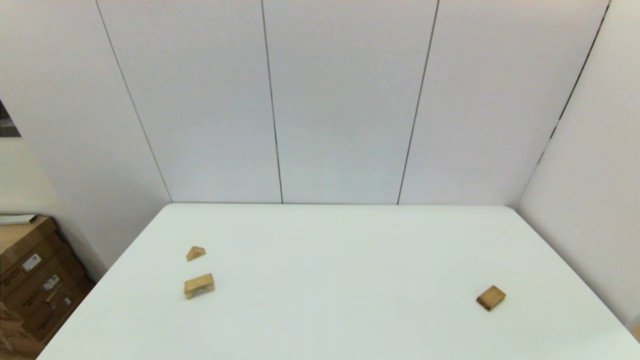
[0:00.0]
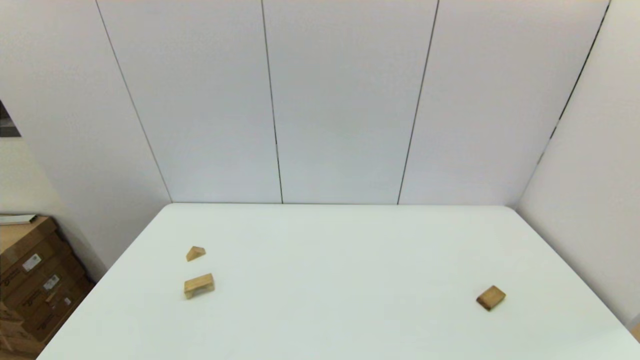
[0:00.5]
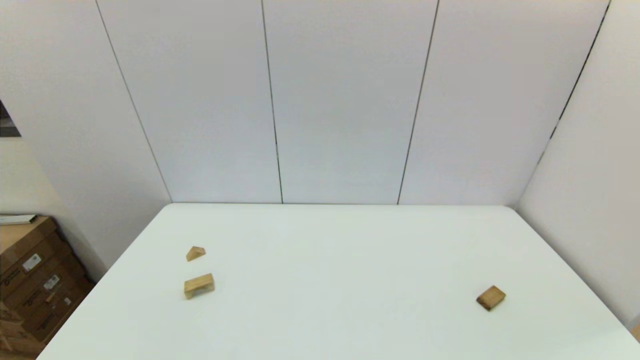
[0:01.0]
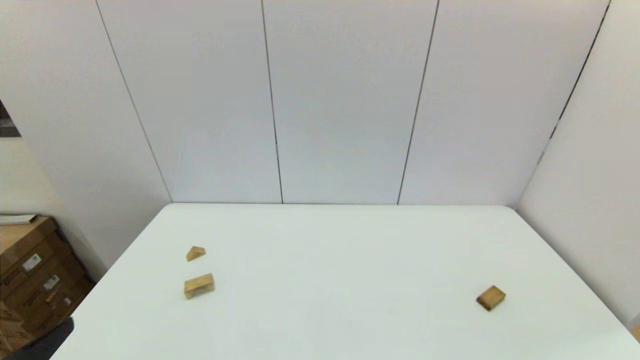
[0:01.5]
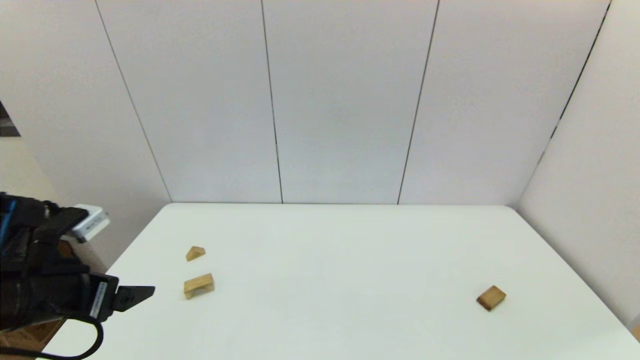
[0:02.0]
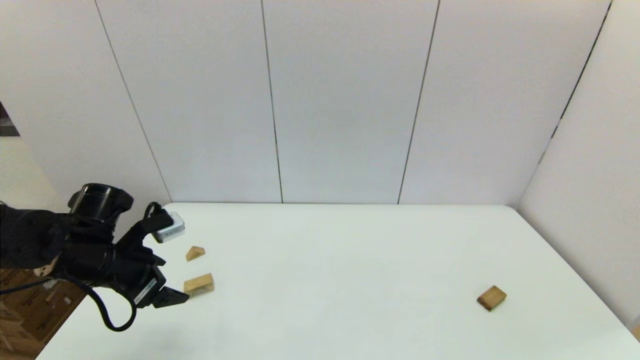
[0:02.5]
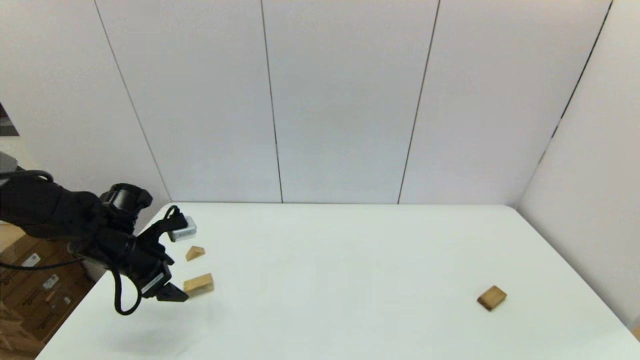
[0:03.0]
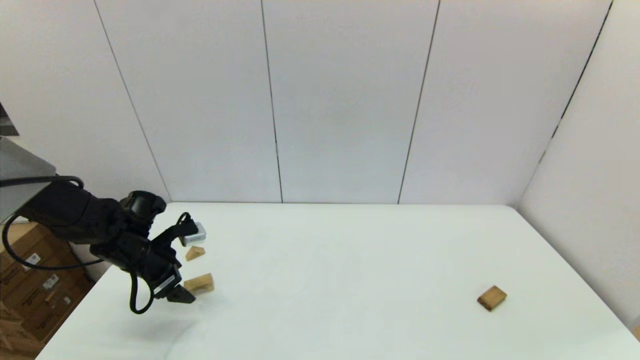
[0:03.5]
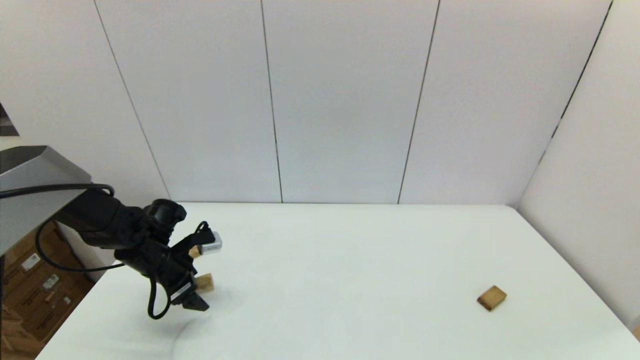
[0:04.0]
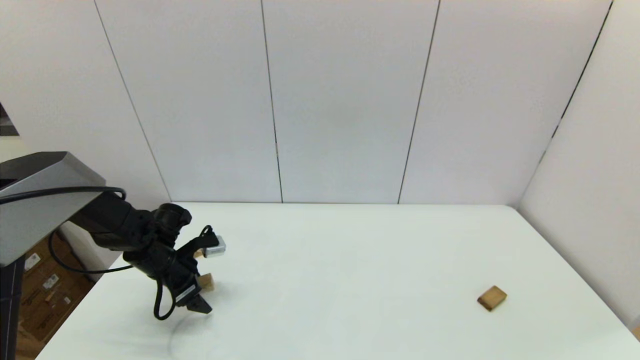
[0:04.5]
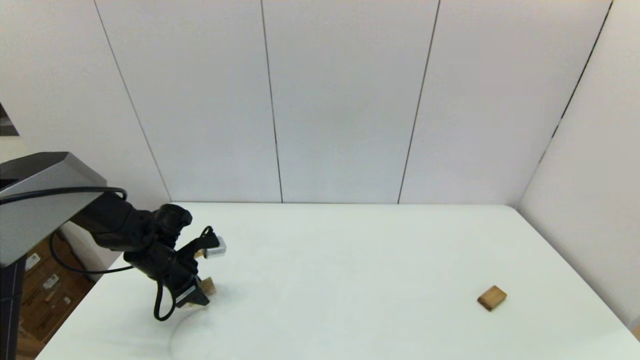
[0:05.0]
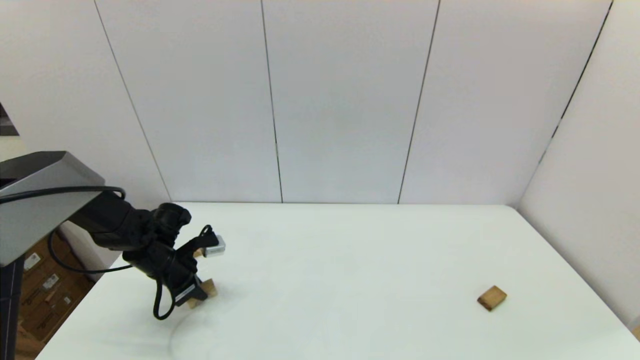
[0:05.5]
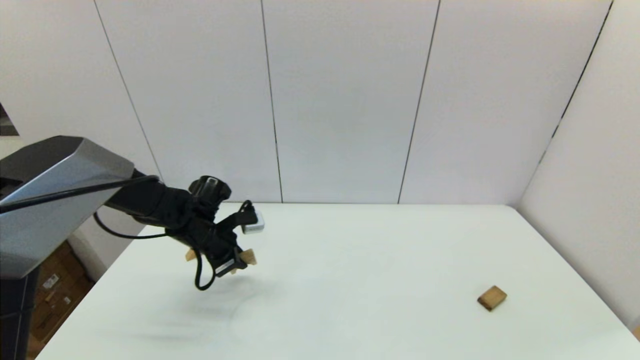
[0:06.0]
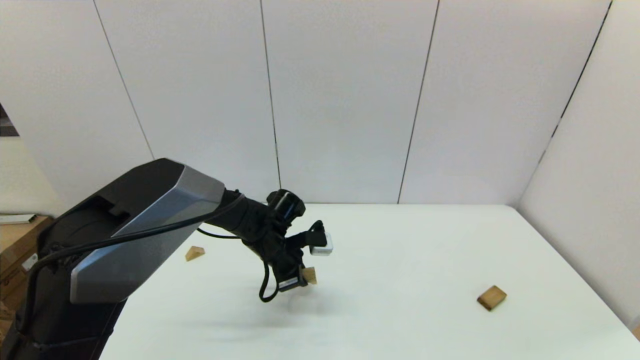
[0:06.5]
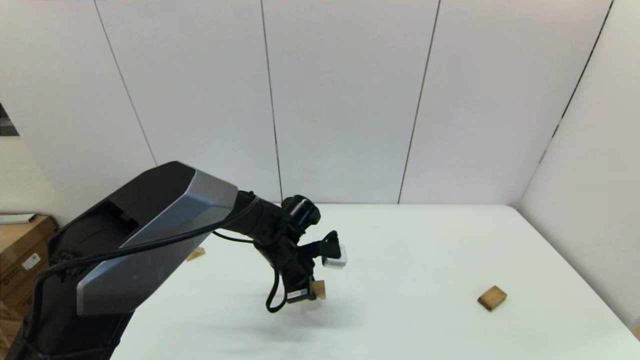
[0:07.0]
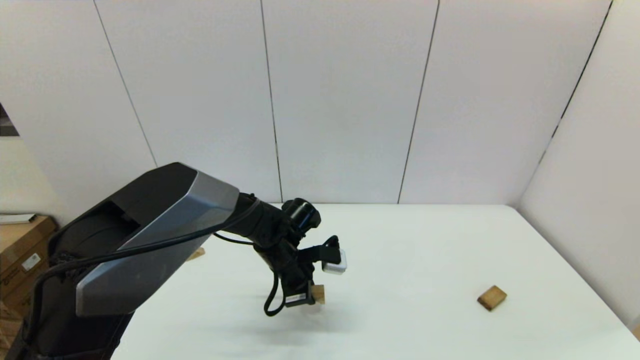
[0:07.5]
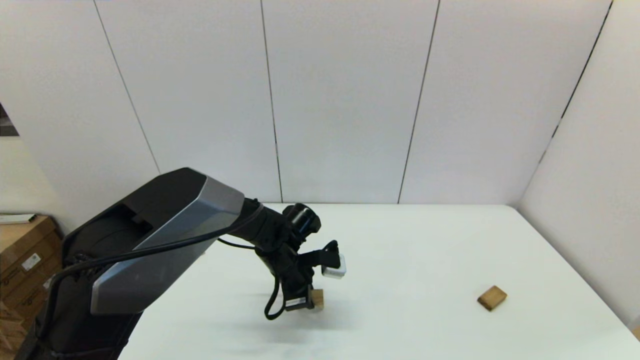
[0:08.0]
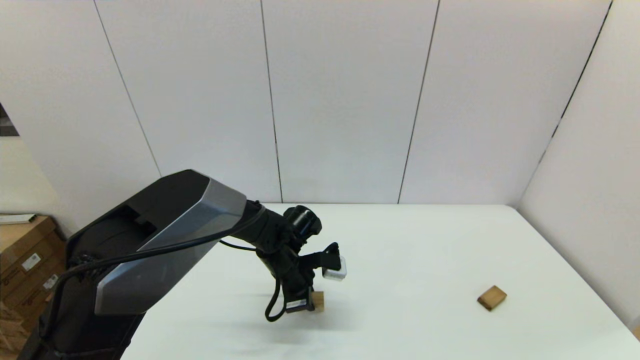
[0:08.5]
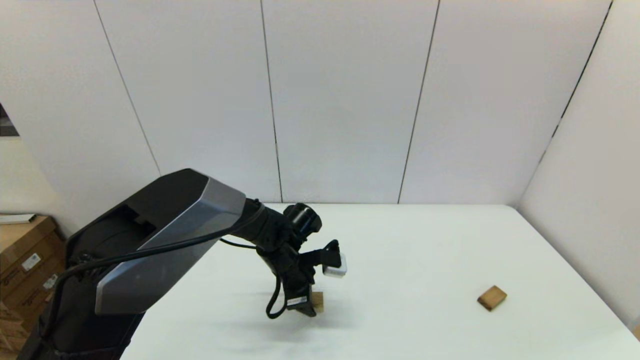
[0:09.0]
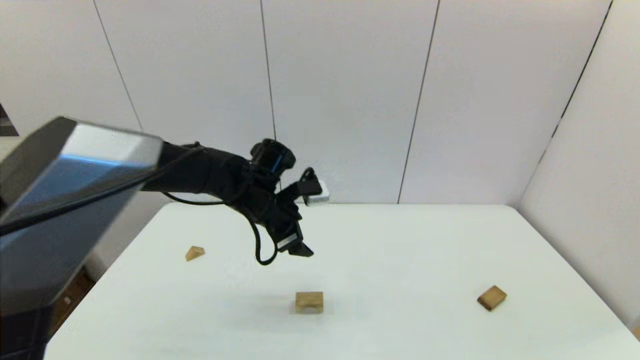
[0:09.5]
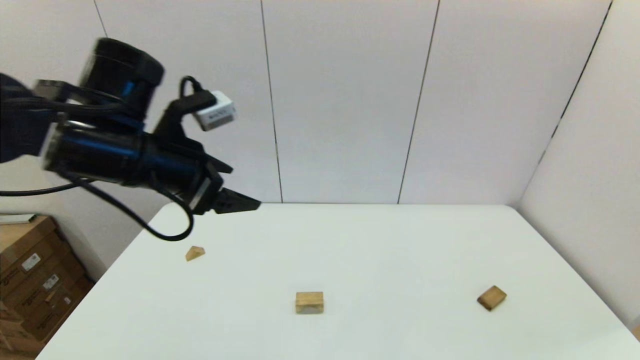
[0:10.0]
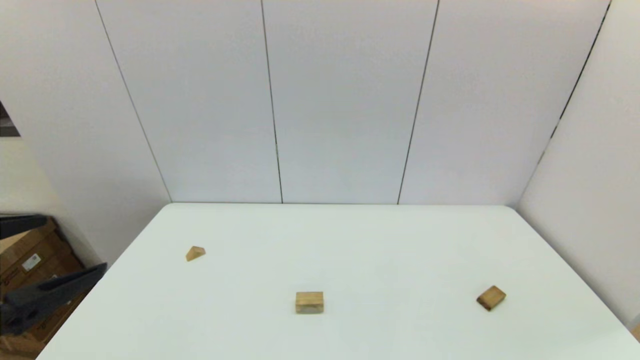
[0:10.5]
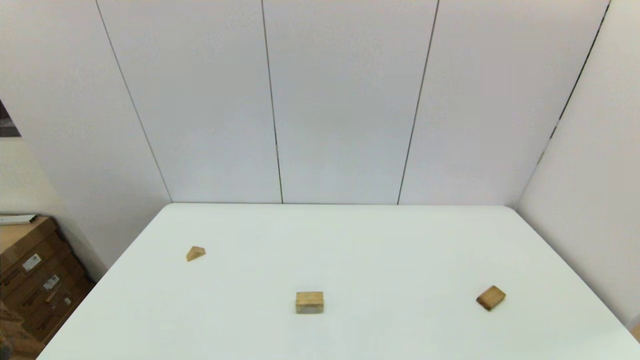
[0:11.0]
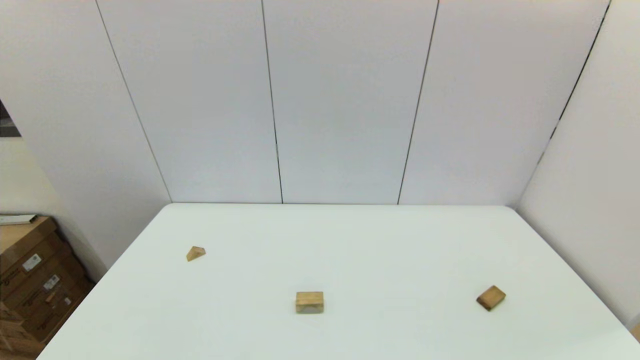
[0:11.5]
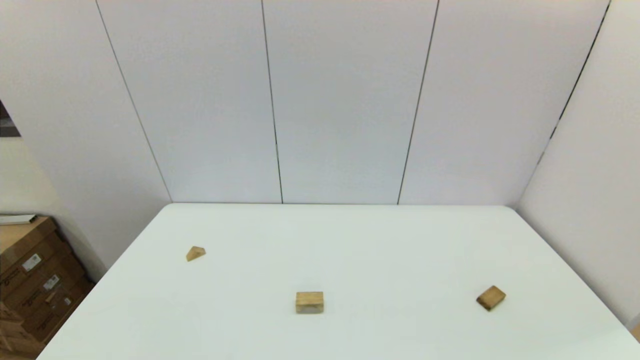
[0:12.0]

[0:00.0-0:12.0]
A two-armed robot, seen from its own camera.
Task of the whole recording: place the arched building blocks in the center of the table, set up the rectangular building blocks, and then set up the triangular building blocks.
Step, 0:01.5 to 0:05.0: Grasp the arch-shaped block with the left gripper.
Step, 0:05.5 to 0:08.5: Place the arch-shaped block in the center of view with the left gripper.
0:00.0 to 0:02.0: The left gripper goes approximately 20 cm forward.
0:02.0 to 0:04.0: The left gripper travels forward and downward by roughly 20 cm.
0:04.0 to 0:06.0: The left gripper goes approximately 10 cm to the right, and closes.
0:06.0 to 0:08.0: The left gripper is displaced to the right by some 15 cm.
0:08.0 to 0:10.0: The left gripper travels upward and to the left by about 30 cm, and opens up.
0:10.0 to 0:12.0: The left gripper is displaced backward and downward by some 35 cm.

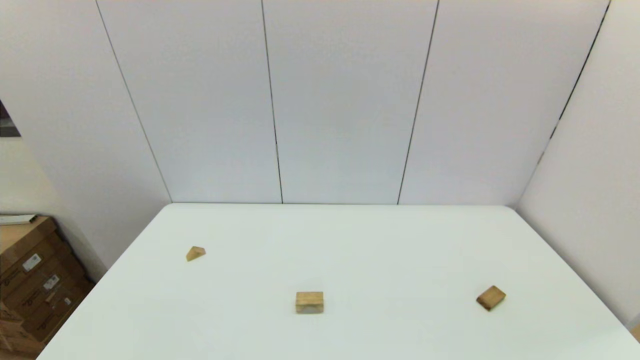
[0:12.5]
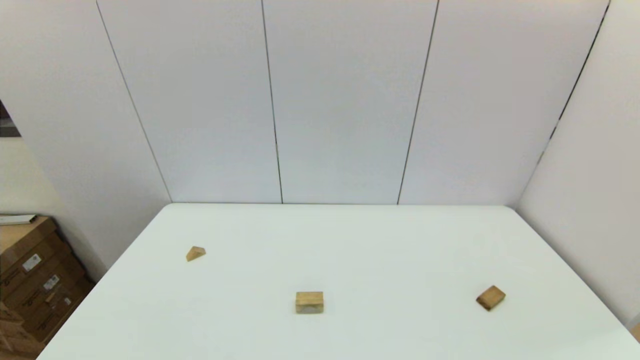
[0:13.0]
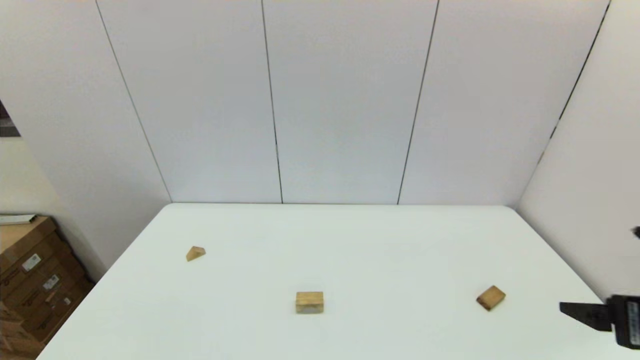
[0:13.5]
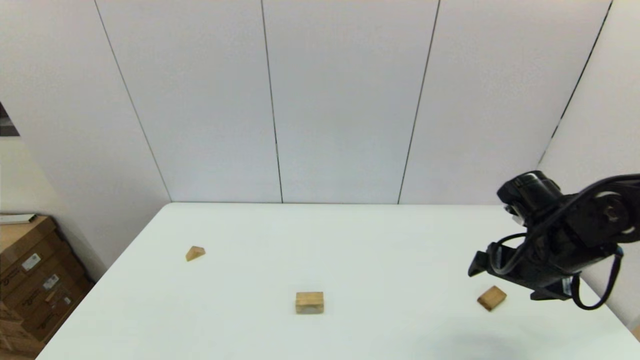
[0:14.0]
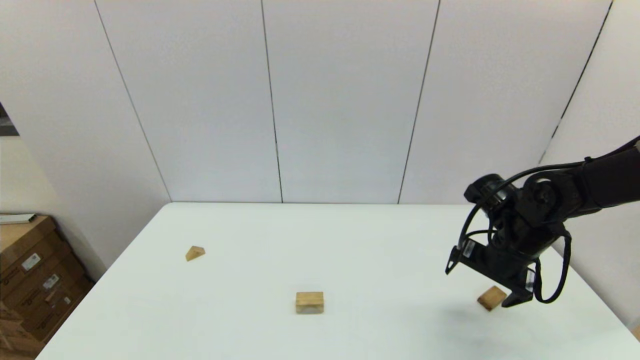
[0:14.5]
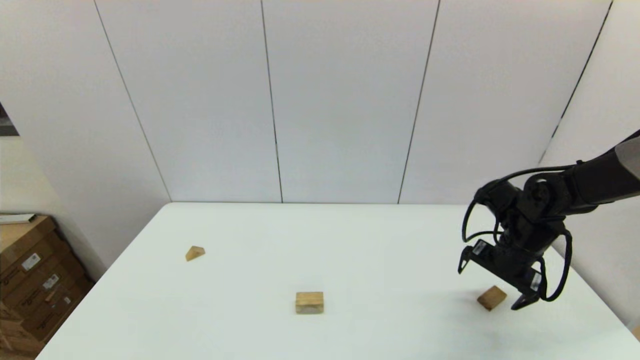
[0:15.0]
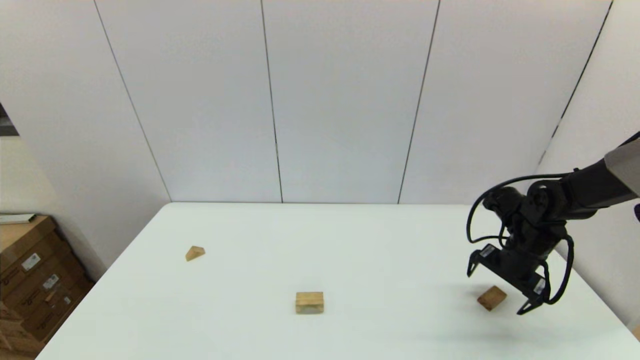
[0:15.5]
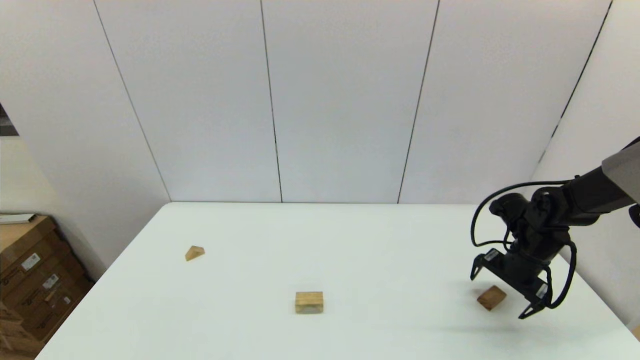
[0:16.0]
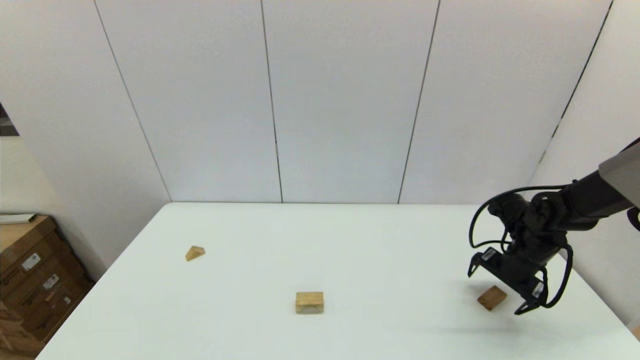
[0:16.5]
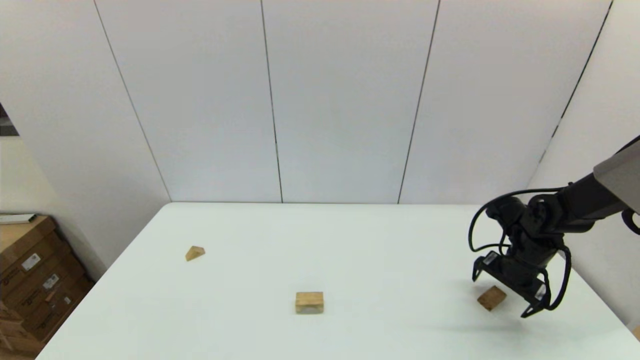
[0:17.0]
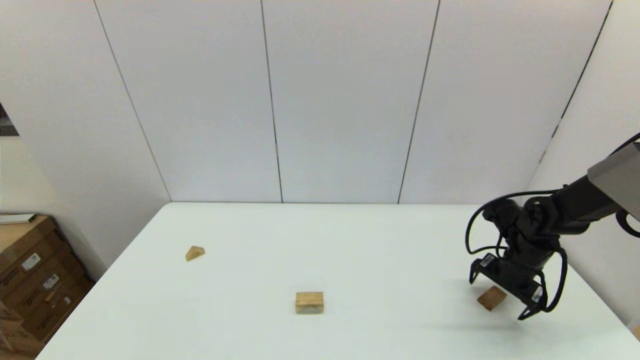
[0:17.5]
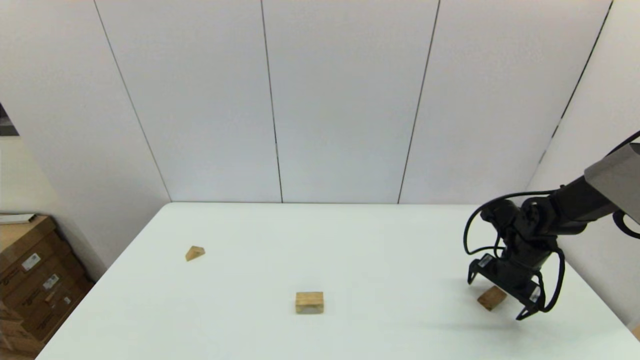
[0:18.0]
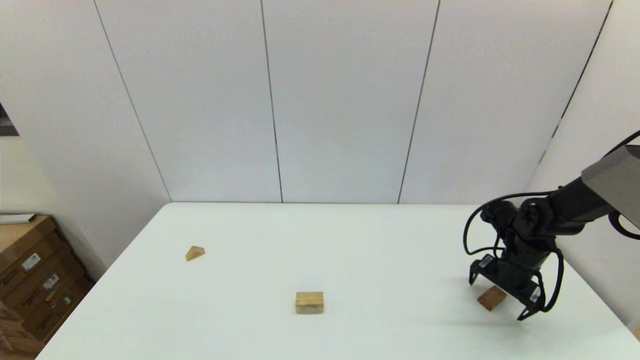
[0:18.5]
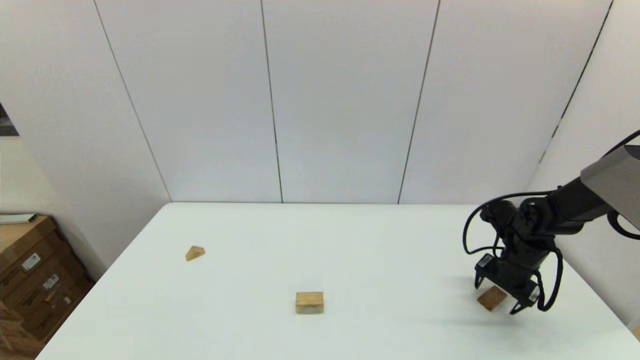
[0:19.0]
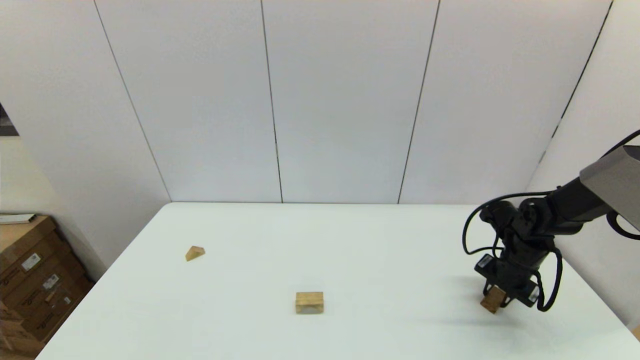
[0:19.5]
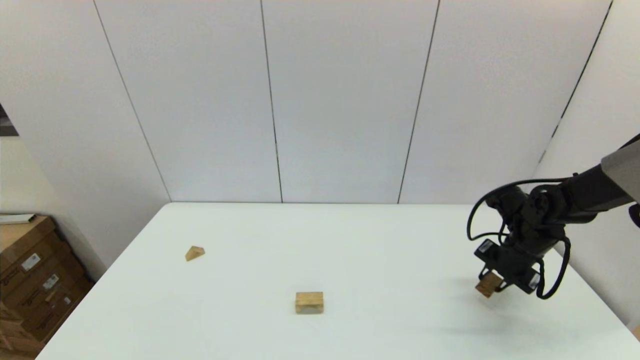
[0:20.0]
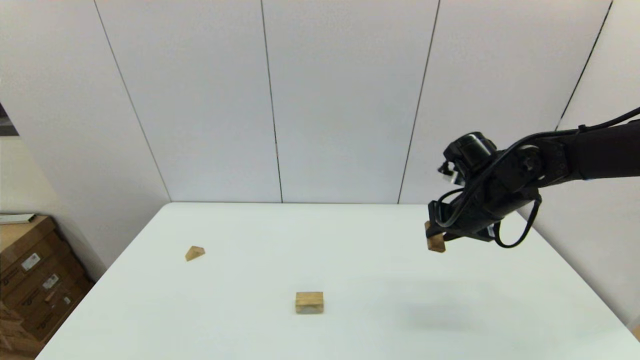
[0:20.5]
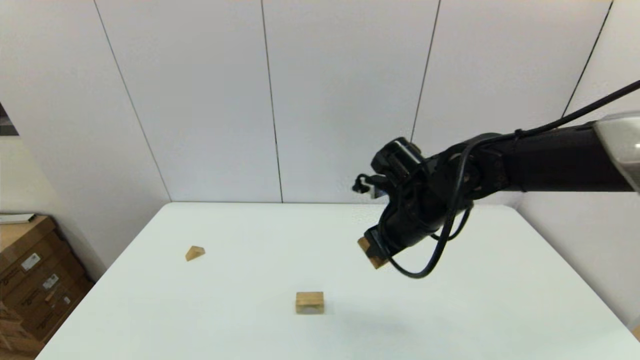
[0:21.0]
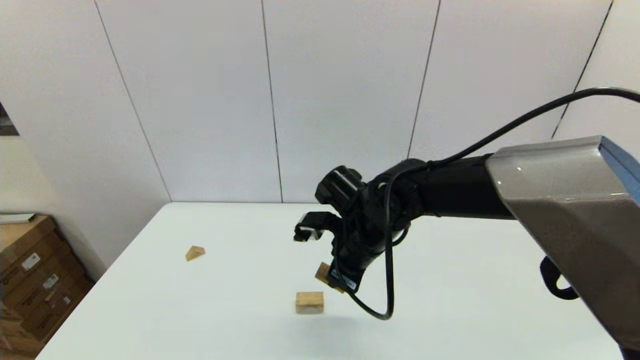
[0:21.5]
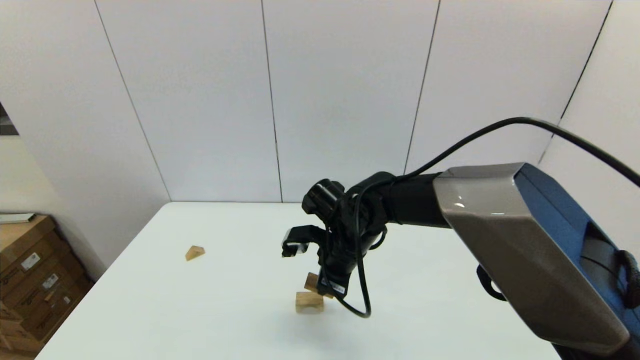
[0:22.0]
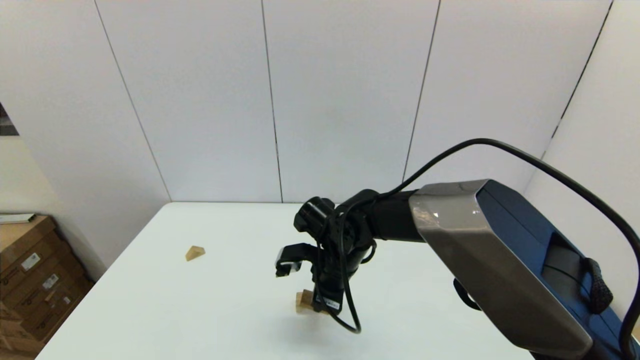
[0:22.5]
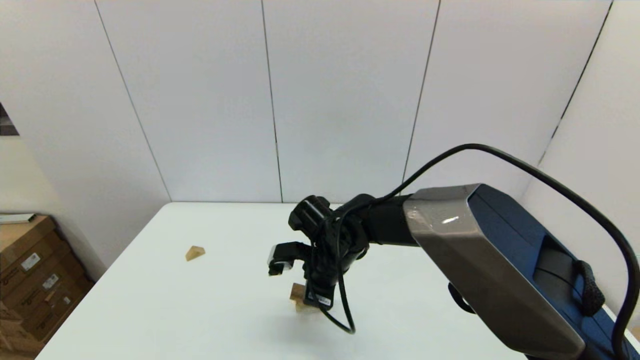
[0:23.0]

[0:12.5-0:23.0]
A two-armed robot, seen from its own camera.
Task of the whole recording: place the arched building blocks in the center of the table, set up the rectangular building blocks, and then set up the triangular building blocks.
Step, 0:12.5 to 0:19.0: Grasp the box-shaped block with the right gripper.
0:12.5 to 0:14.5: The right gripper heads forward, covering some 35 cm.
0:14.5 to 0:16.5: The right gripper shifts some 10 cm to the right and downward.
0:16.5 to 0:19.0: The right gripper closes its fingers.
0:19.0 to 0:21.0: The right gripper shifts roughly 30 cm to the left and upward, and closes its fingers.
0:21.0 to 0:23.0: The right gripper travels to the left and downward by roughly 15 cm.
